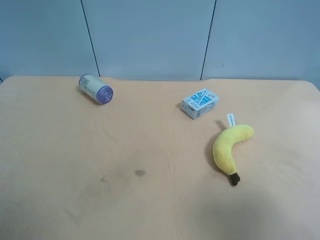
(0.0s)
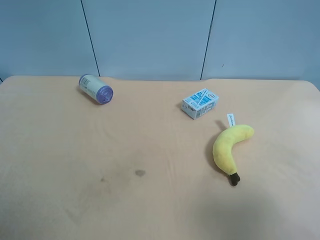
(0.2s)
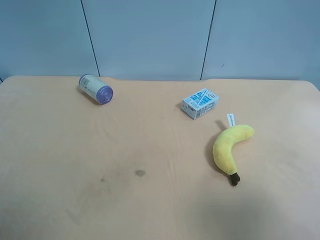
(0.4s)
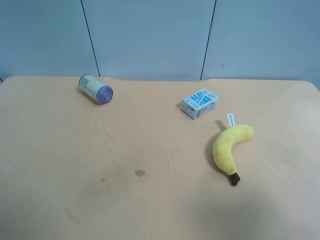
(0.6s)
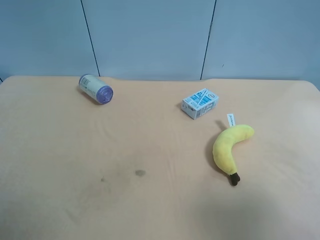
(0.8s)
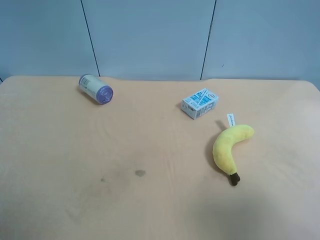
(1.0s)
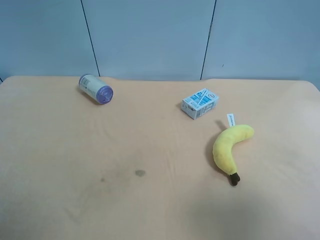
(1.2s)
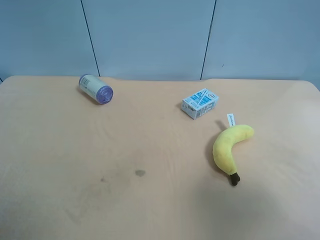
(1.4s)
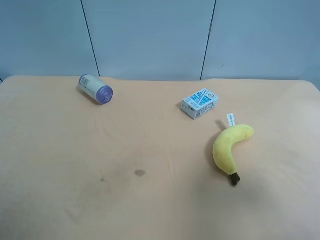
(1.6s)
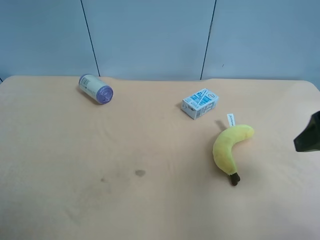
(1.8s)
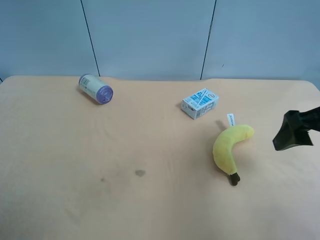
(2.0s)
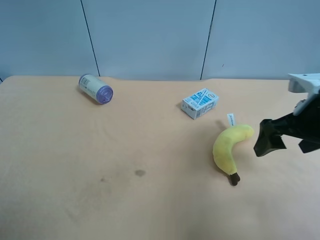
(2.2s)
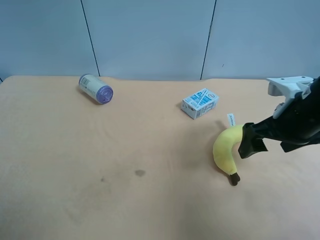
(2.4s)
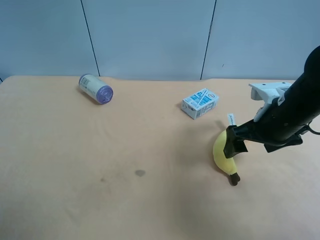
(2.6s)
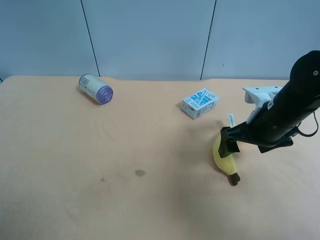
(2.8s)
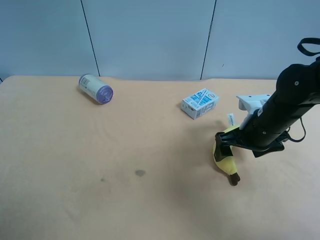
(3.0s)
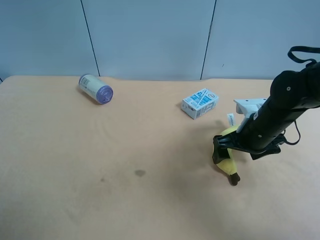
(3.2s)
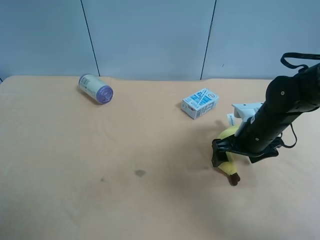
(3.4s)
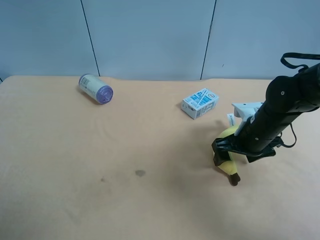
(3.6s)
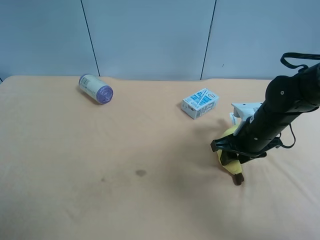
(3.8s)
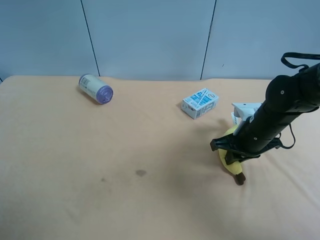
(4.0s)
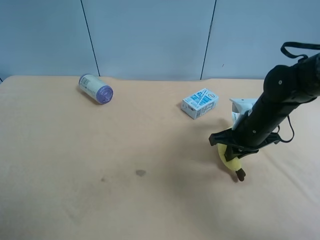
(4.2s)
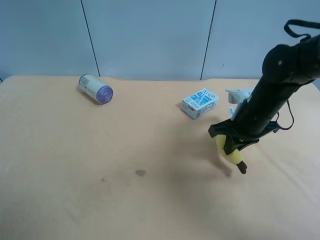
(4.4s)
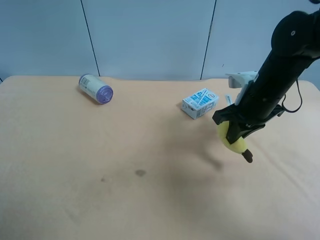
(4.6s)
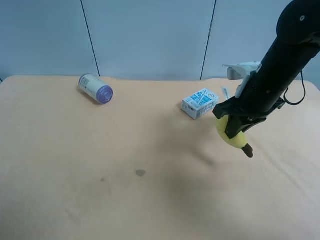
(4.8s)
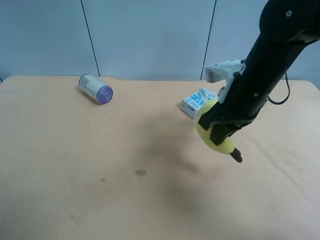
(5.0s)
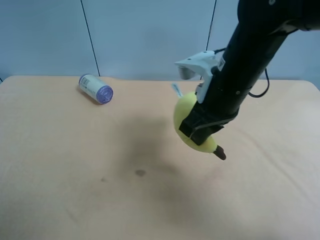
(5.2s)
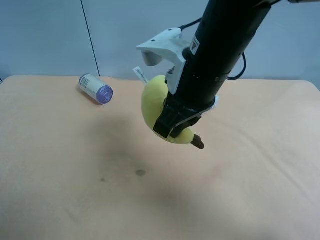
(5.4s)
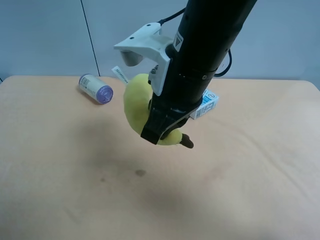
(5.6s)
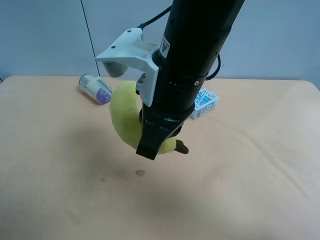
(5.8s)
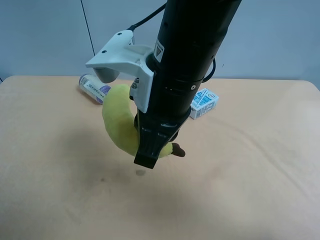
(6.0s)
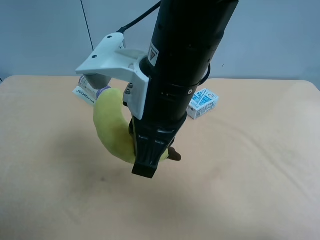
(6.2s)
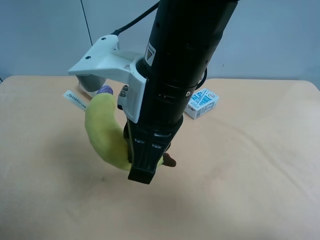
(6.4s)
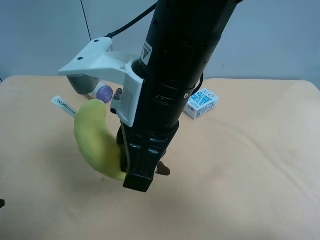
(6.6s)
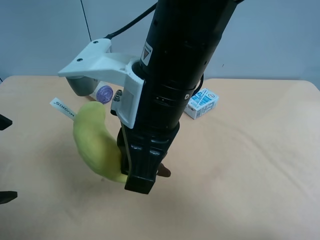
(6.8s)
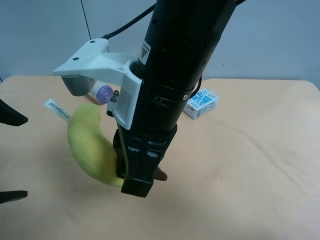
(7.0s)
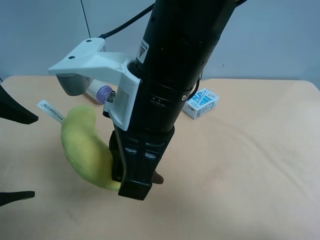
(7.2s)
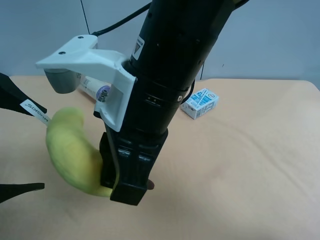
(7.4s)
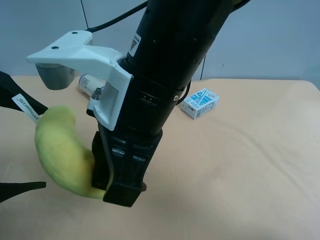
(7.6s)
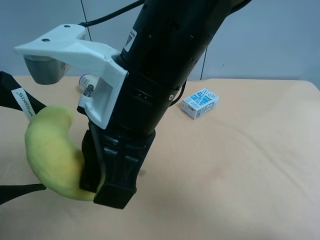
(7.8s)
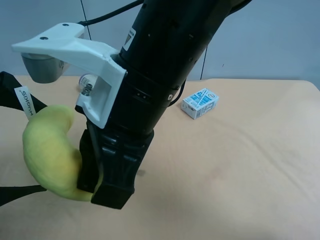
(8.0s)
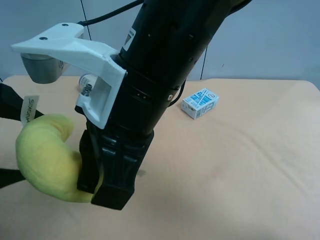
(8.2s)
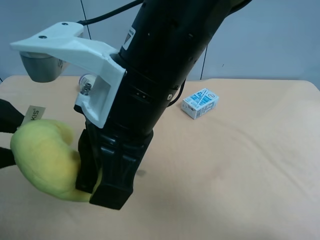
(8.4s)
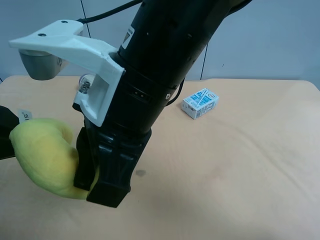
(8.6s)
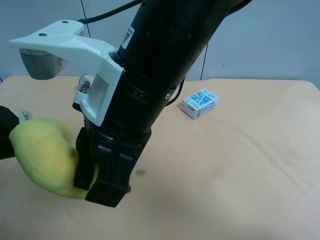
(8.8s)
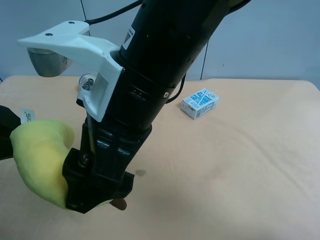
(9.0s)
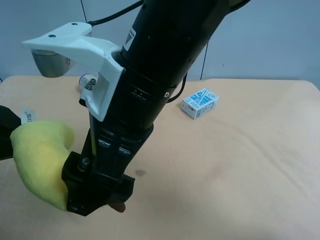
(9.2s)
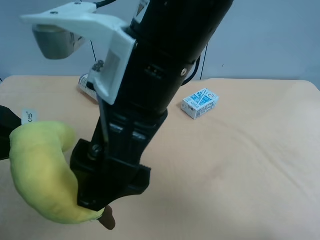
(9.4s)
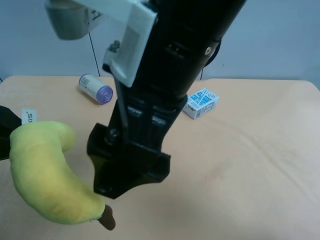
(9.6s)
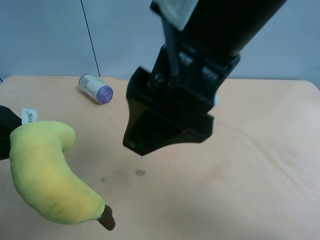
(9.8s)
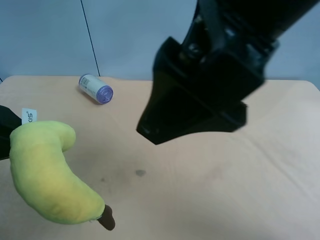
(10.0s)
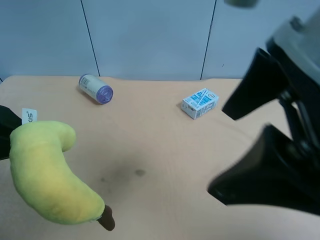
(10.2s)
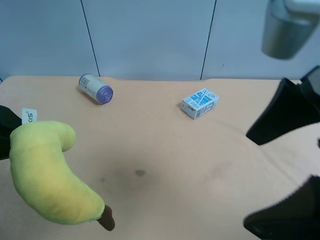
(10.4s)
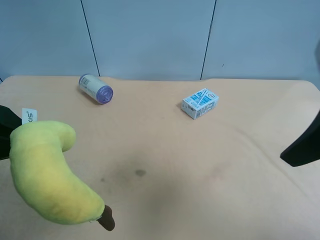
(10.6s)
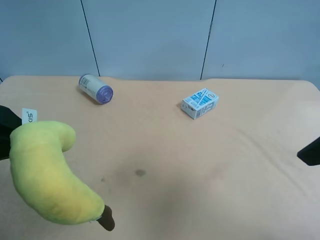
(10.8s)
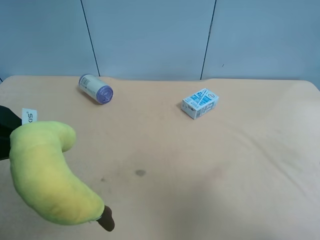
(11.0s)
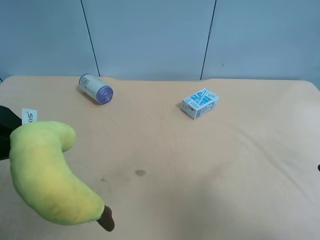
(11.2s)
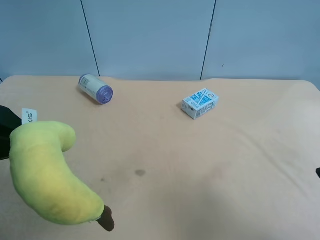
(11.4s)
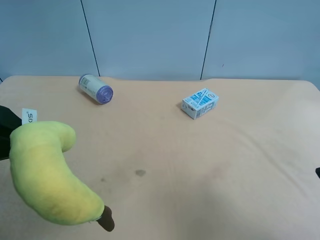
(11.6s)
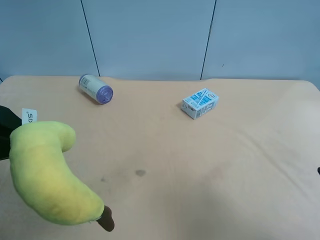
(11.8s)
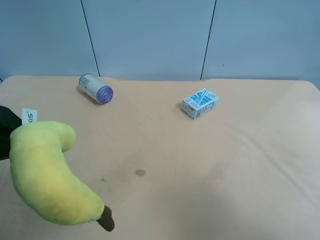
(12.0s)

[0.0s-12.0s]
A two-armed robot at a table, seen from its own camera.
Task of the whole recording: use the right gripper to pick up the item and transfer it from the right gripper to the left gripper.
0.0s to 1.6s: The right gripper is displaced forward by approximately 10 cm.
1.6s to 3.0s: The right gripper moves forward, downward and to the left, some 25 cm.
3.0s to 4.4s: The right gripper closes.
4.4s to 6.0s: The left gripper ends up roughly 5 cm from where it was. Meanwhile the right gripper shifts approximately 25 cm to the left, upward and backward.
6.0s to 7.6s: The left gripper moves to the right and forward, approximately 10 cm.
7.6s to 9.0s: The right gripper opens its fingers, while the left gripper closes its fingers.
9.0s to 10.4s: The right gripper is displaced to the right and backward by roughly 20 cm.
10.4s to 12.0s: The right gripper travels to the right, downward and backward by about 15 cm.

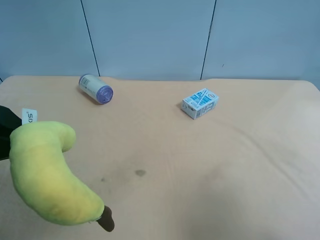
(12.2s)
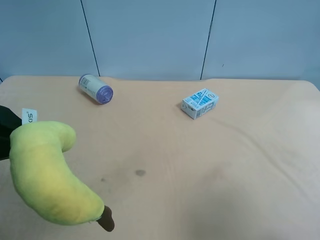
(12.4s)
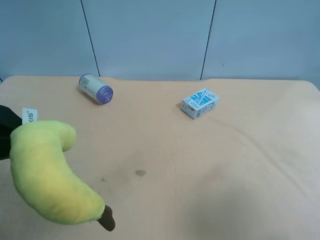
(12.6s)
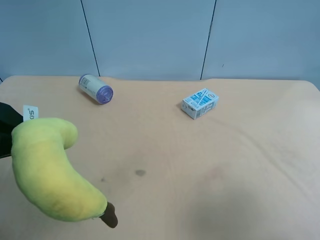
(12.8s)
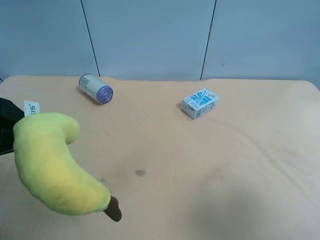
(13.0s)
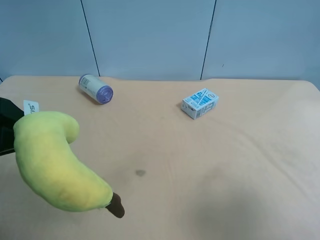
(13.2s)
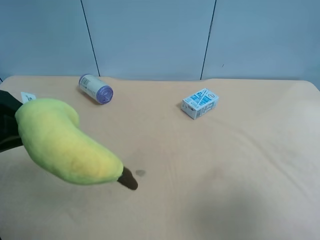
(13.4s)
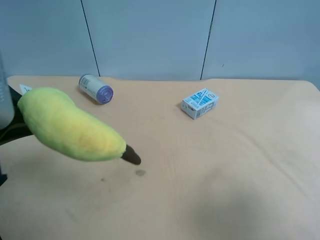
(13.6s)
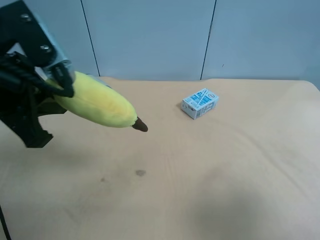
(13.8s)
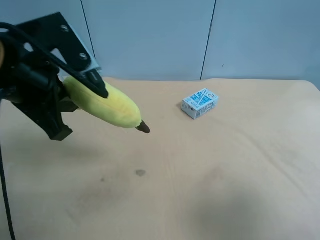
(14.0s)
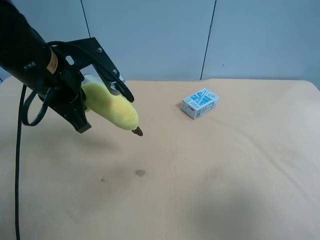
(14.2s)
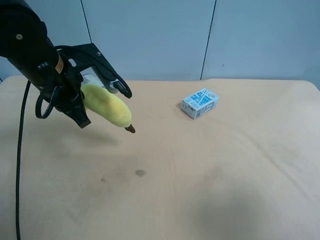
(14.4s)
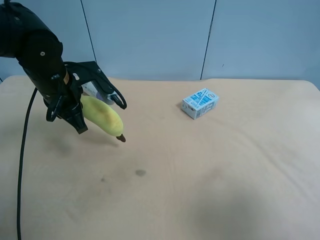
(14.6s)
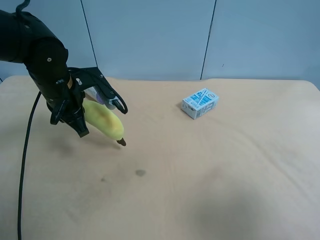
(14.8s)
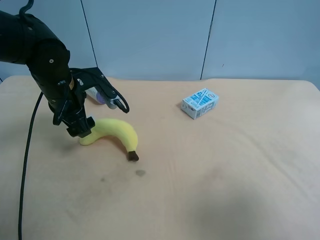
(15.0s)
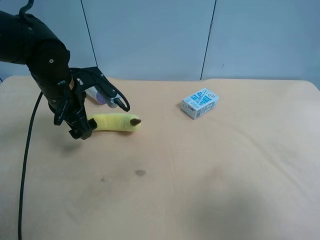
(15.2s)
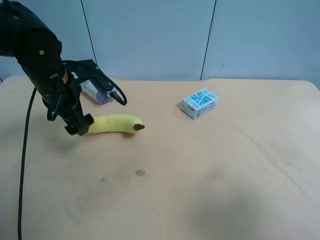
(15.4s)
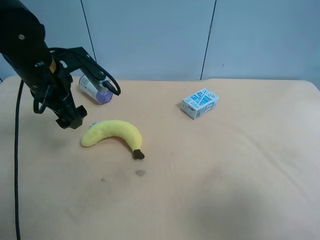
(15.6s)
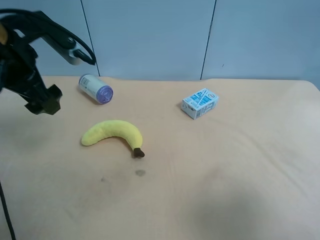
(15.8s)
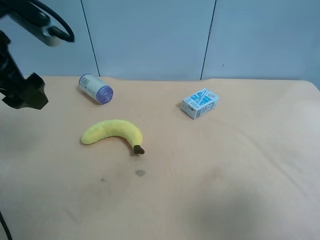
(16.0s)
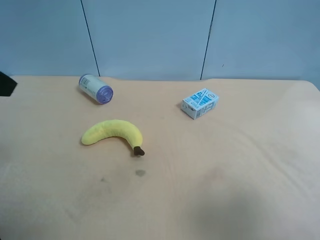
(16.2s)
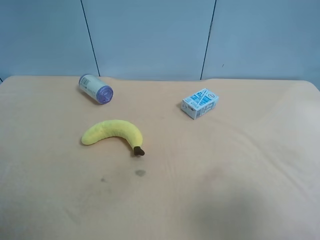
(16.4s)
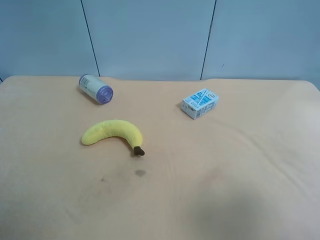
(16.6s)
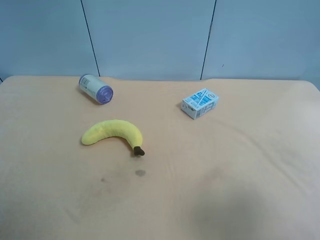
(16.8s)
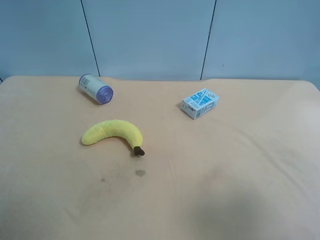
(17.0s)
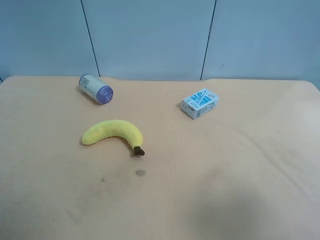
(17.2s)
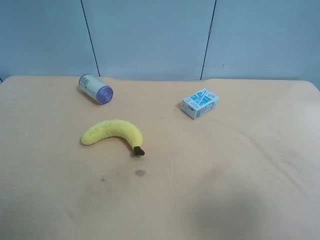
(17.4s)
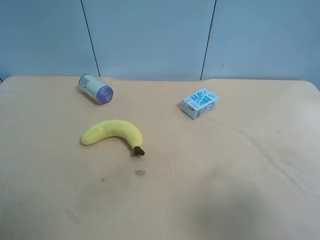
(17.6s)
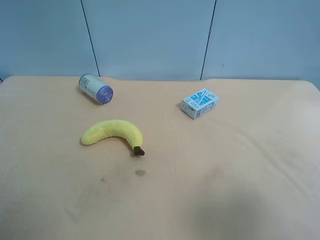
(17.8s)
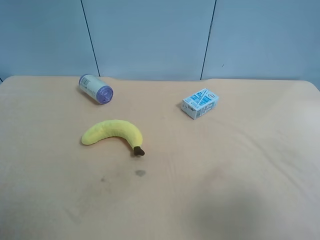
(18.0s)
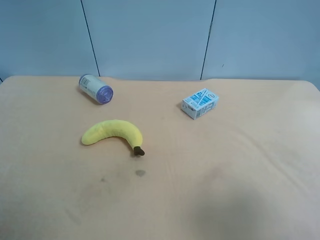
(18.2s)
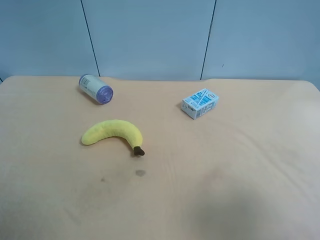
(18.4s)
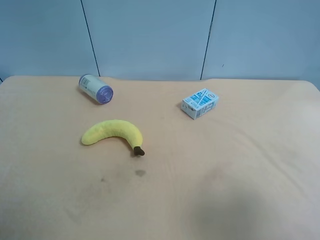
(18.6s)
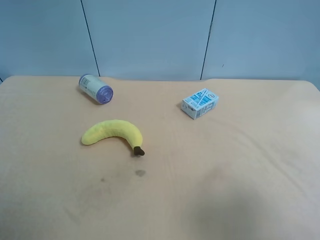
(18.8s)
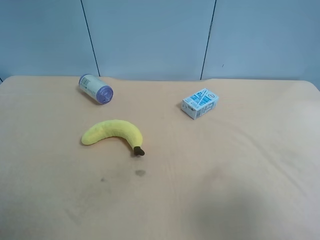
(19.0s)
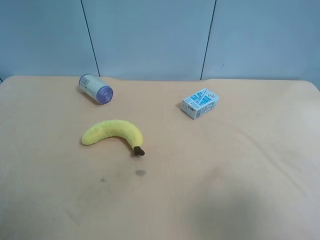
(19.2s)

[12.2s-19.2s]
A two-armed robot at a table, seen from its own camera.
Task of the whole recording: use the right gripper to pick up the item and transfer it from the right gripper to the left gripper.
13.6s to 15.0s: The left gripper moves forward and downward, some 20 cm, and opens.
15.0s to 16.4s: The left gripper shifts some 30 cm backward, upward and to the left.

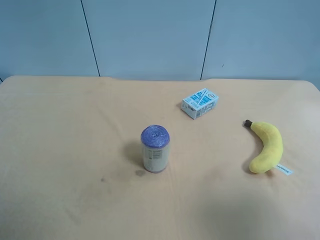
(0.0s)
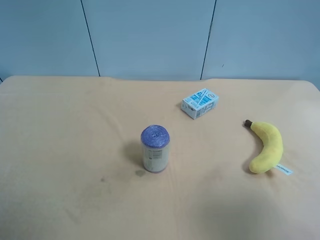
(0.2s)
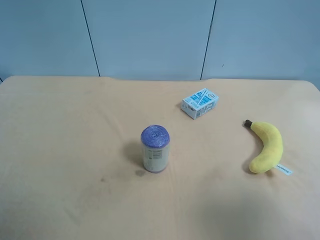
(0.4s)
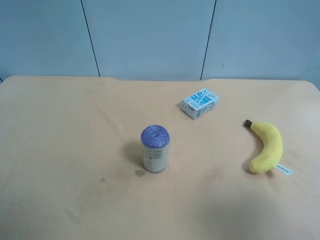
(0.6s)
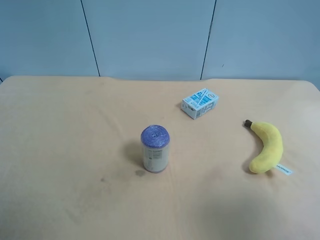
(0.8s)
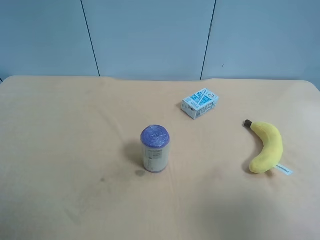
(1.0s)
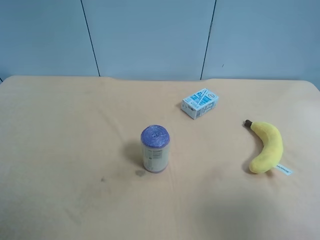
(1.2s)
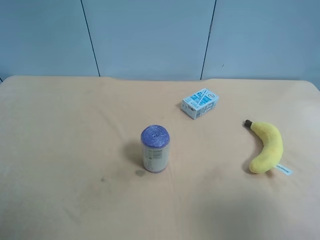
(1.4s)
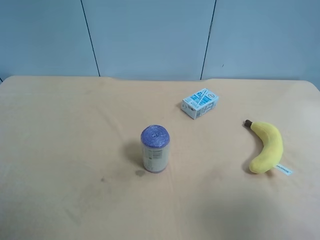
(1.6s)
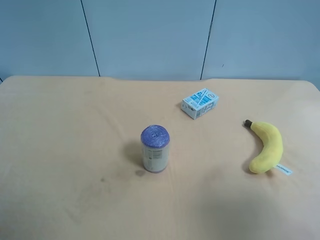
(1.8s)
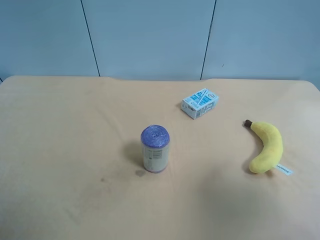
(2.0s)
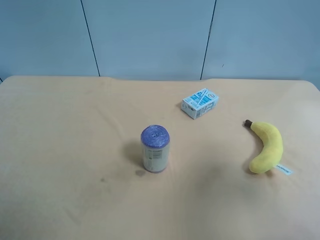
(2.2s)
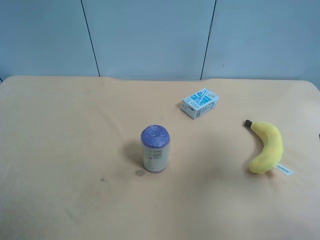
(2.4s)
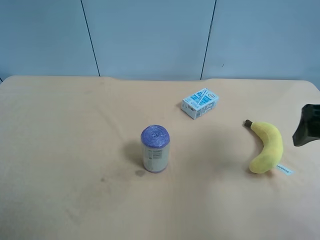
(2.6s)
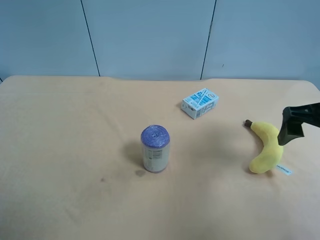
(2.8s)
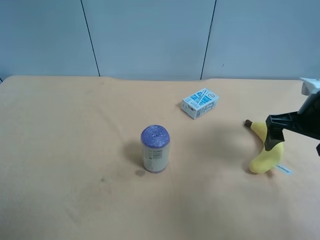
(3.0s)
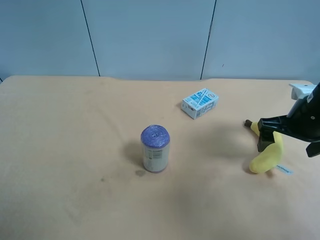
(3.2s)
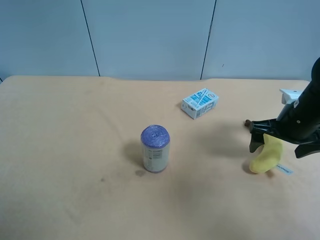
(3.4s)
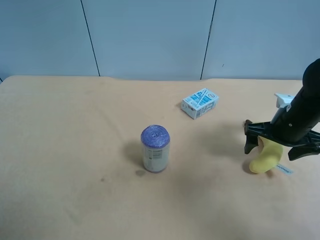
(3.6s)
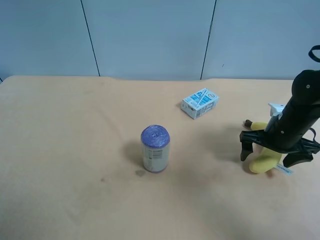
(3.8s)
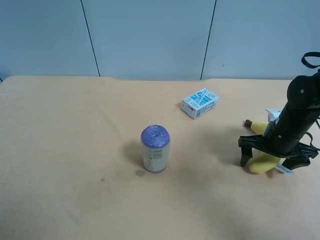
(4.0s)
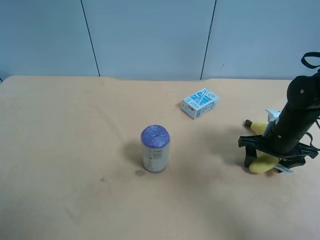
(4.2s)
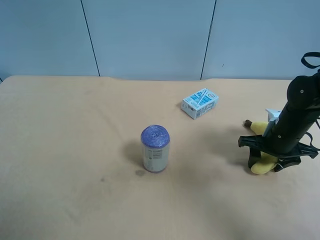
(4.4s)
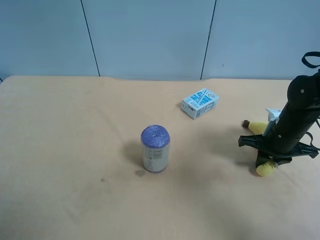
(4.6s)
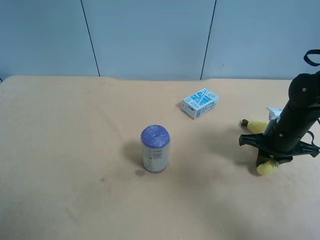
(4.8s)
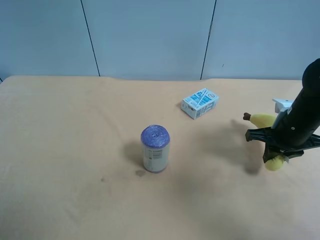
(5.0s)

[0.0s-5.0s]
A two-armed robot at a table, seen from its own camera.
Task of the whole recording: use the right gripper to pick up the item and transfer it from the right gripper to the left gripper.
0.0s to 1.6s: Both grippers stay about where they are.
1.6s to 3.4s: The right gripper shifts roughly 30 cm forward and downward.
3.4s to 5.0s: The right gripper closes.
